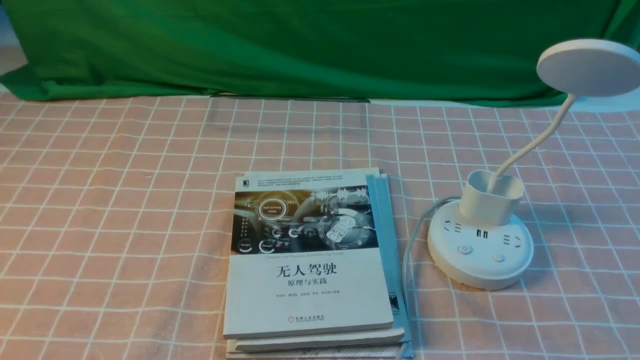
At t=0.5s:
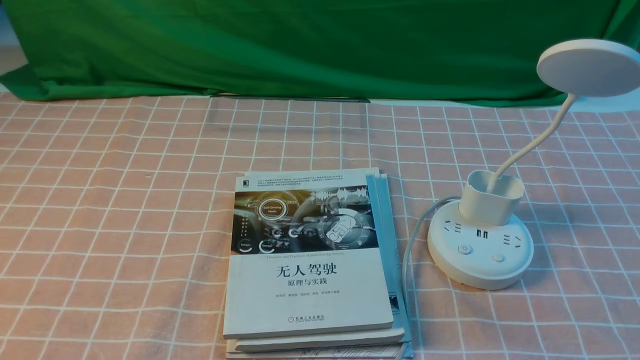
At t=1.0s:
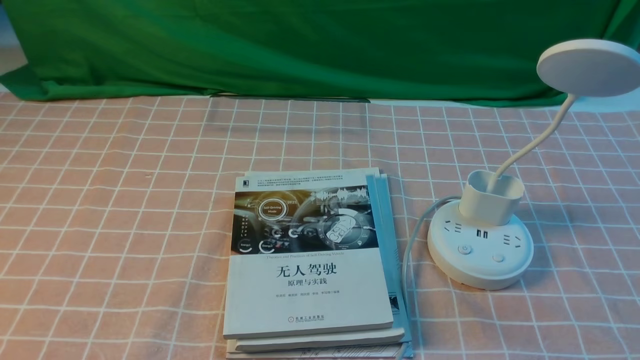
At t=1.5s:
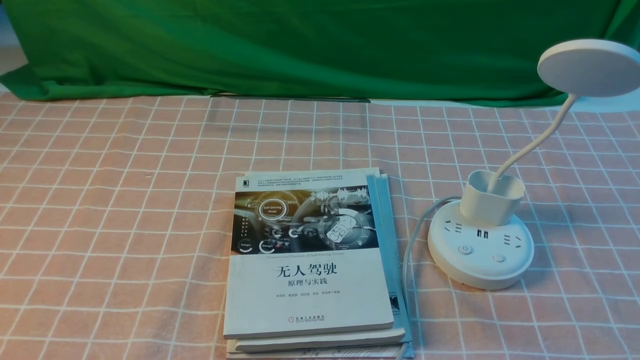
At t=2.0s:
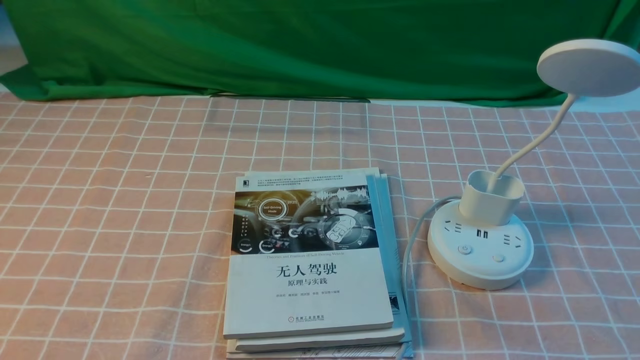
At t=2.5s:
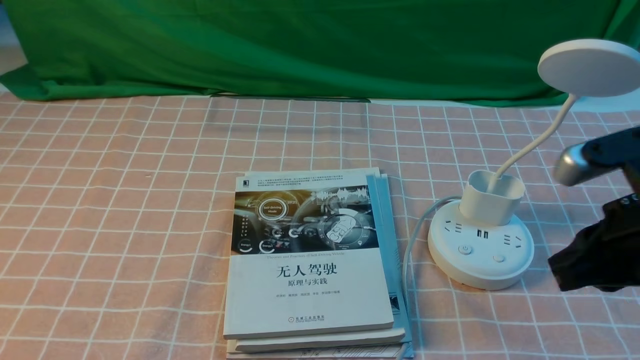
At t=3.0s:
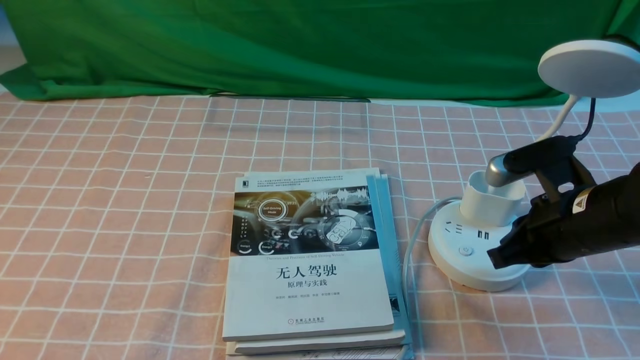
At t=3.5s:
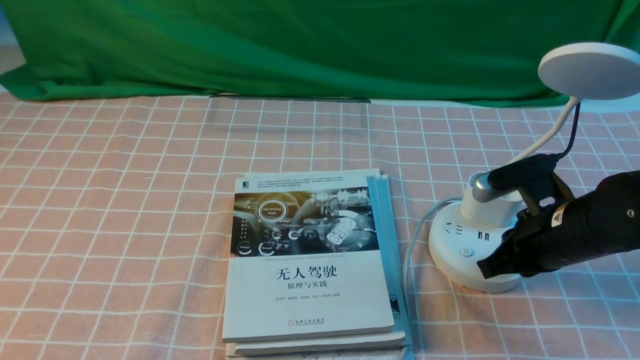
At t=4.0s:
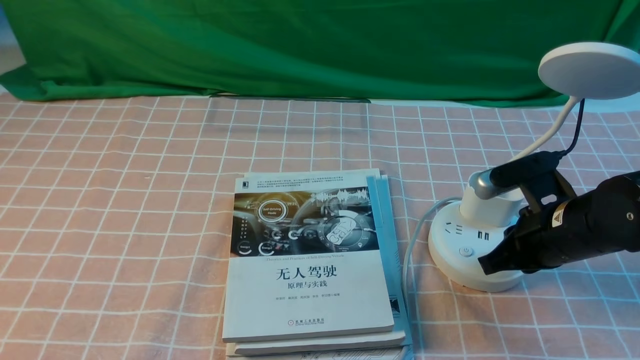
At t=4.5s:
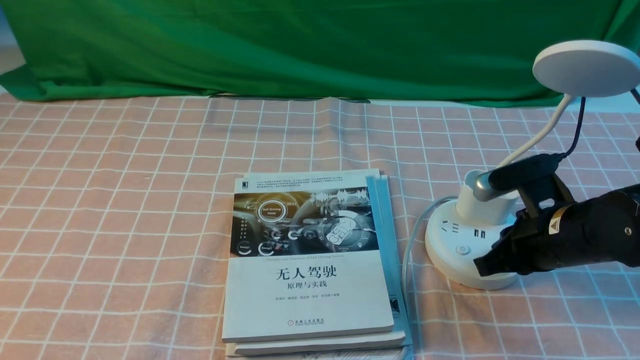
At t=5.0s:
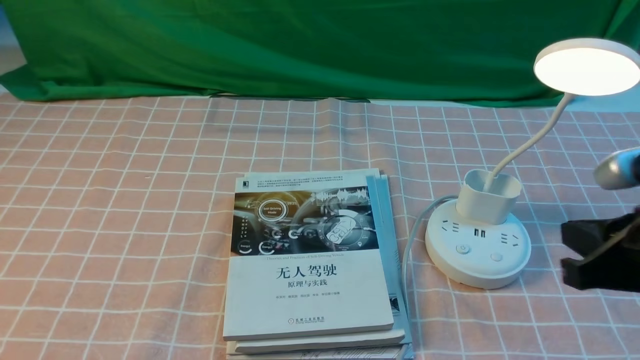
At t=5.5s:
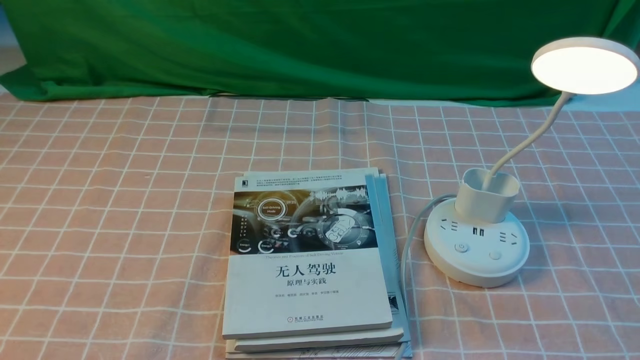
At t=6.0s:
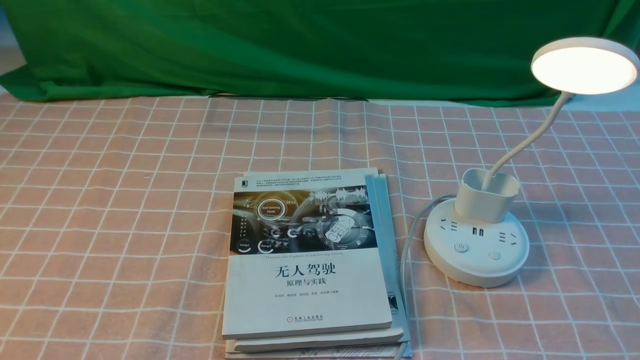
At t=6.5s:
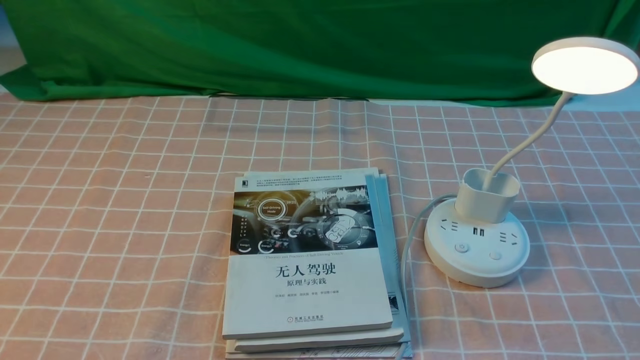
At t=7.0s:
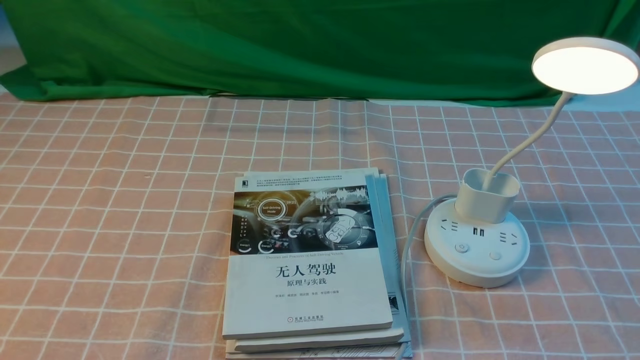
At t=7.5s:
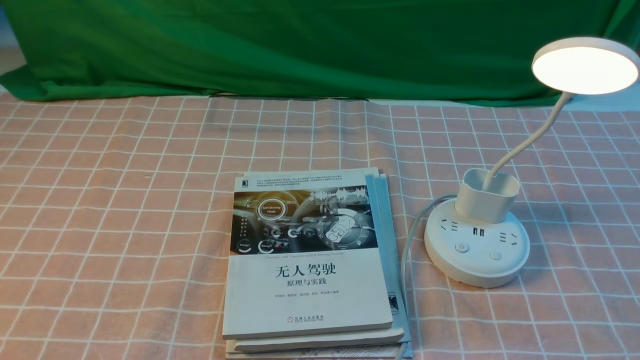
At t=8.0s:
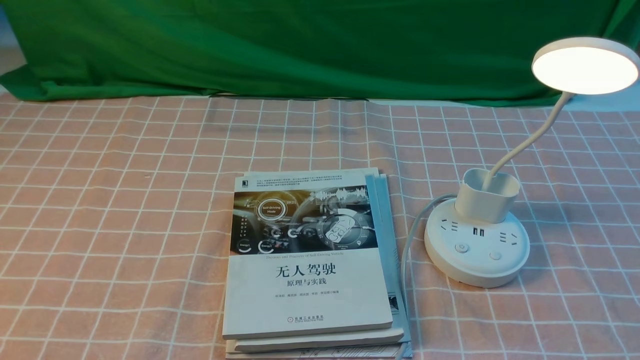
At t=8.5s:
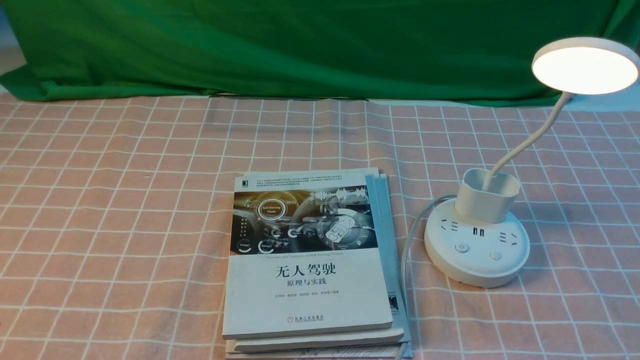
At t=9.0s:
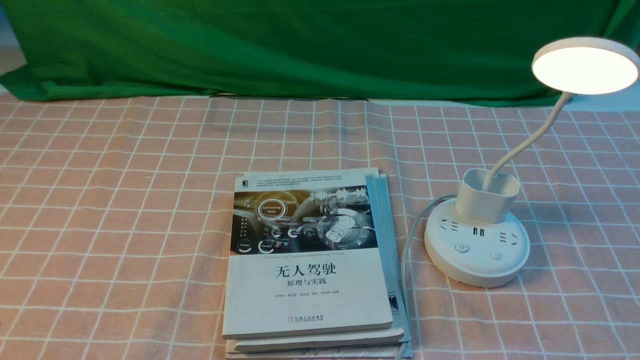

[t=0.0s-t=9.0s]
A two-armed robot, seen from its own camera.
Step, t=0.0s to t=4.5s: use the right arm to press the button switch on the lamp holder.
t=2.0s to t=4.5s: The right gripper moves forward, downward and to the left, approximately 25 cm.
t=4.5s to t=7.0s: The right gripper moves backward and to the right, roughly 25 cm, and opens.
t=7.0s to t=9.0s: Both grippers stay put.
